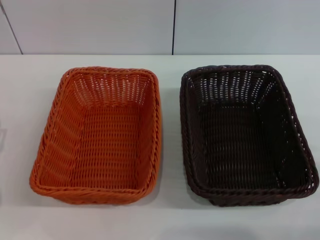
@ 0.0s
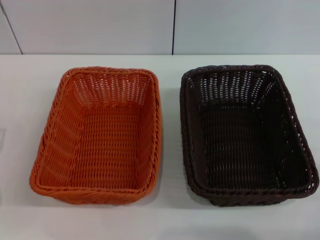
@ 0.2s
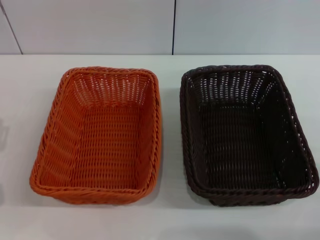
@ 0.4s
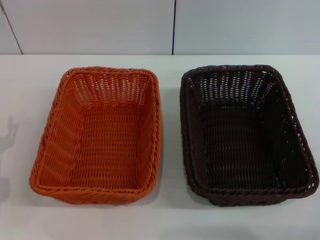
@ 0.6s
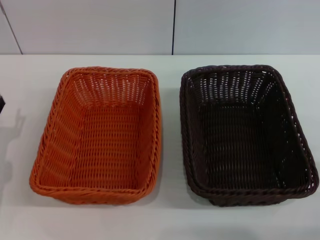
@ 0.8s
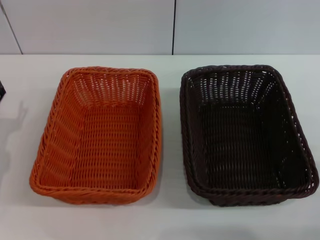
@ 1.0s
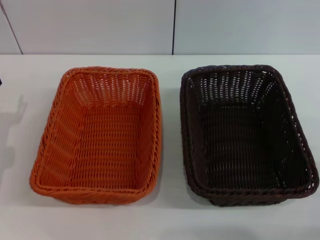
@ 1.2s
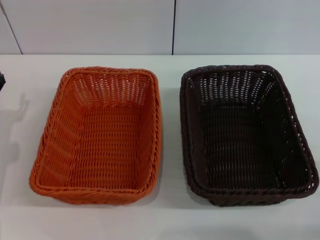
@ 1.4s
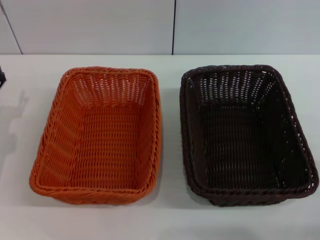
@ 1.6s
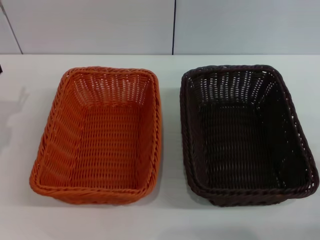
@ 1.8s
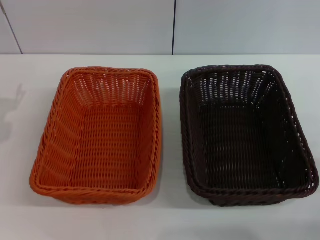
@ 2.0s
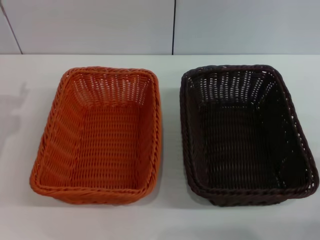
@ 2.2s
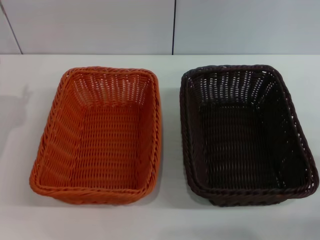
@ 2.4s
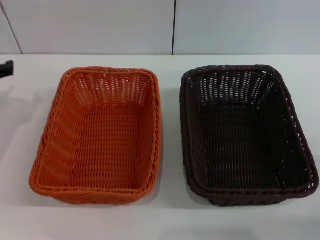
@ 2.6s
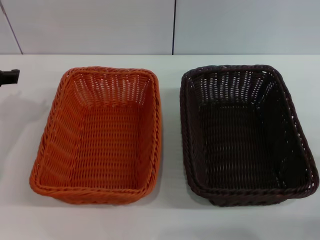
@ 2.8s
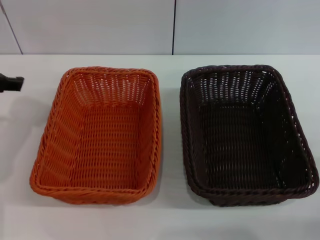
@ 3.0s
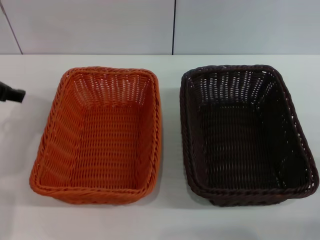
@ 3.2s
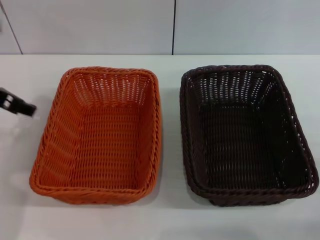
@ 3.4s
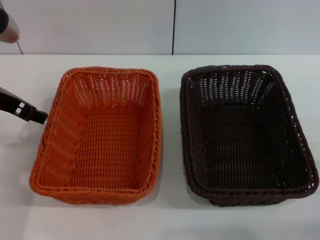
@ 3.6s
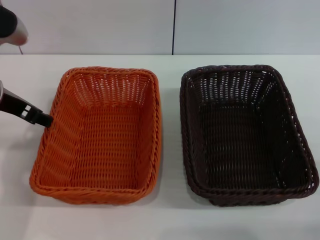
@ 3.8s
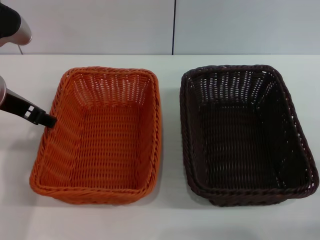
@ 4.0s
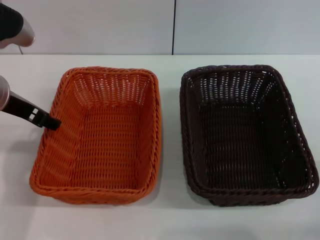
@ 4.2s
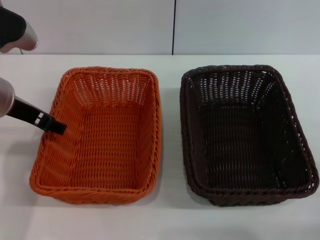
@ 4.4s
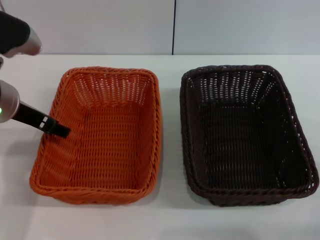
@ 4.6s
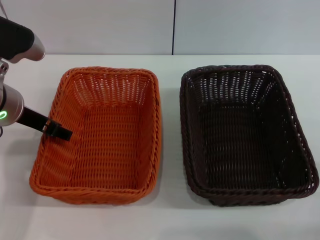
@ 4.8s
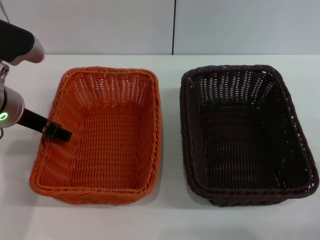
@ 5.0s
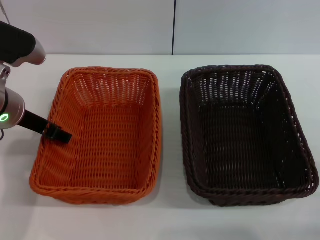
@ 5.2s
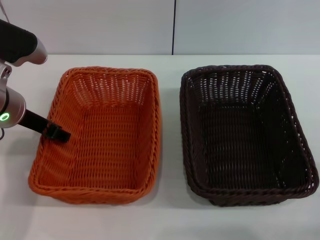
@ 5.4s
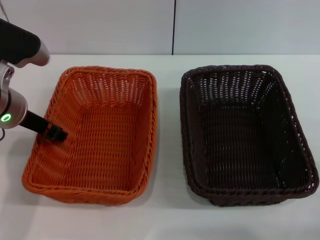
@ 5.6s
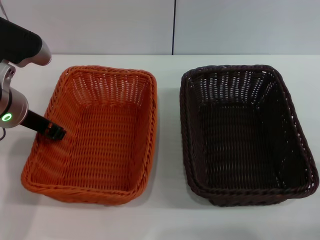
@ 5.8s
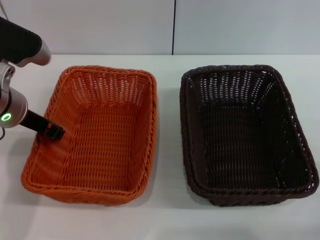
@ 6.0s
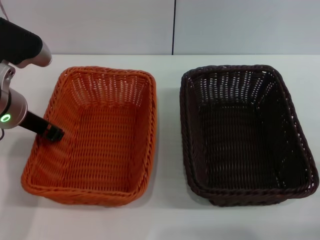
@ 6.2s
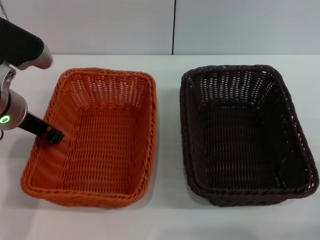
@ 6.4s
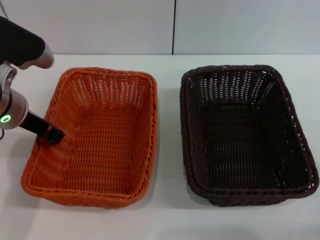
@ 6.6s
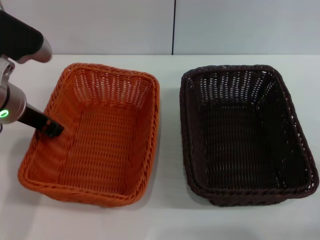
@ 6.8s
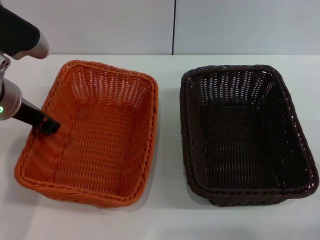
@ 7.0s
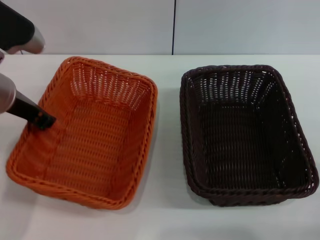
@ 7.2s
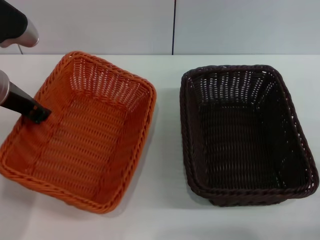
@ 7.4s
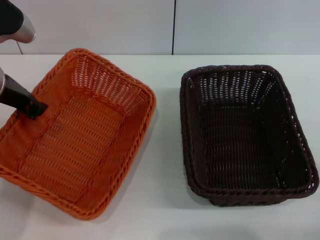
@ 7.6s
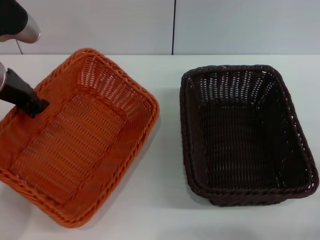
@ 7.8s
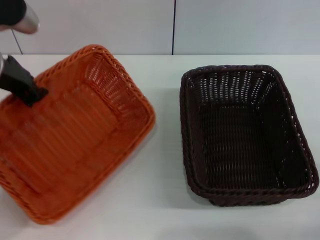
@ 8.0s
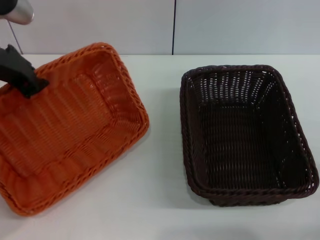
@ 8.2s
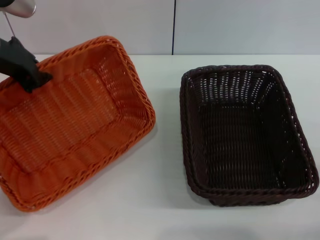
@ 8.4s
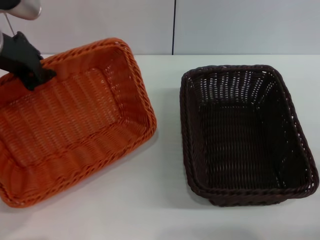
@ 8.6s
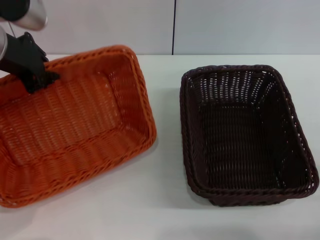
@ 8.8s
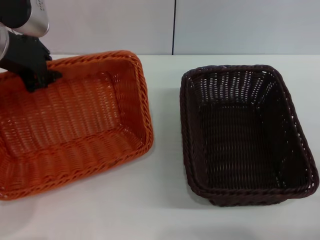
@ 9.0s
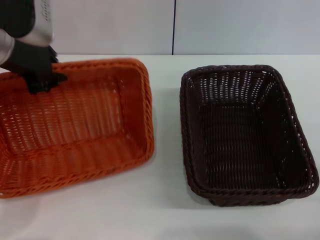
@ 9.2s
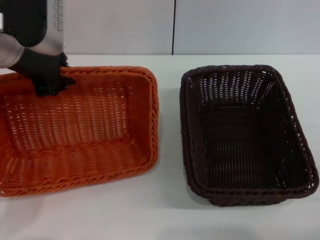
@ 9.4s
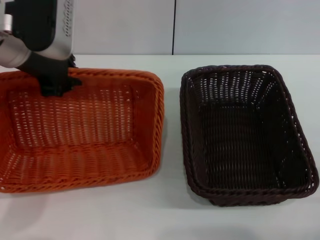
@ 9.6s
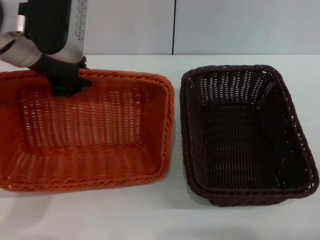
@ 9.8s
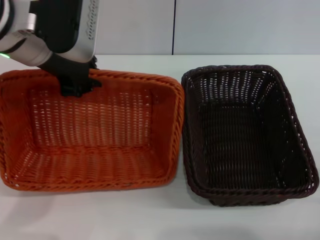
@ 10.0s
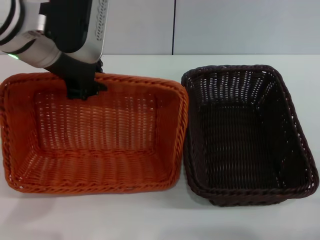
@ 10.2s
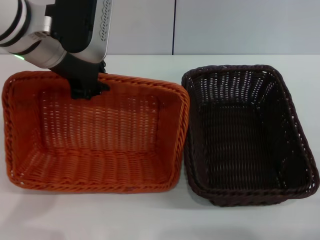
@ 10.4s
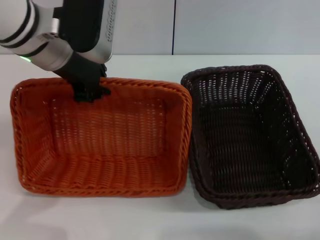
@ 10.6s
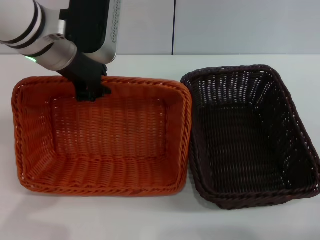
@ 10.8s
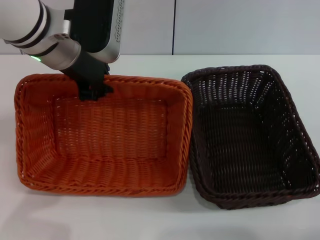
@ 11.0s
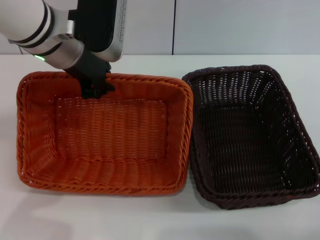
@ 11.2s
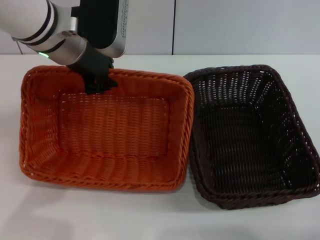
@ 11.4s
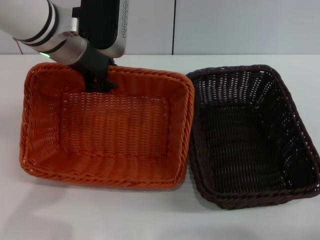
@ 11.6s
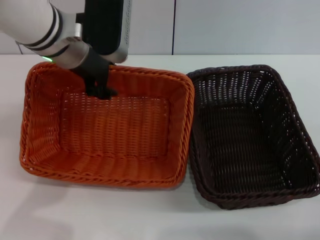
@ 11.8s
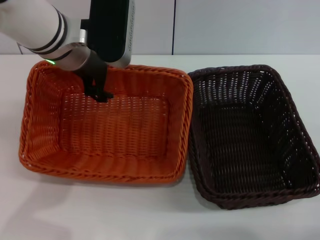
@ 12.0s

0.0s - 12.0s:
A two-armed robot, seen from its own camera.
Step, 0.0s - 7.0s: Pick up the light basket with the left gripper.
3.0s - 4.4s: The left gripper moves to the right, about 5 cm.
4.4s - 6.0s: The left gripper closes.
6.0s - 7.6s: There are only small adjustments of the grippers.
7.6s - 9.0s: The left gripper goes roughly 5 cm upward.
9.0s - 10.4s: The left gripper moves to the right, roughly 5 cm.
10.4s - 12.0s: The left gripper changes place by about 5 cm, and opens.

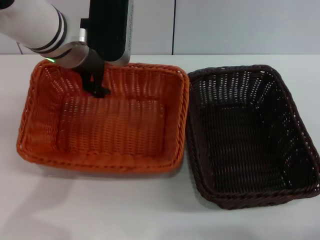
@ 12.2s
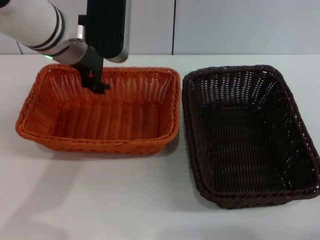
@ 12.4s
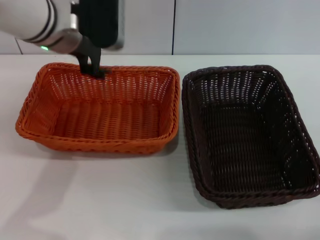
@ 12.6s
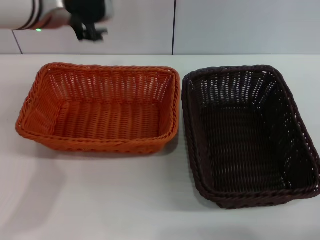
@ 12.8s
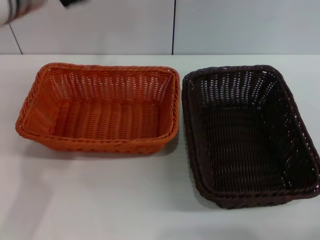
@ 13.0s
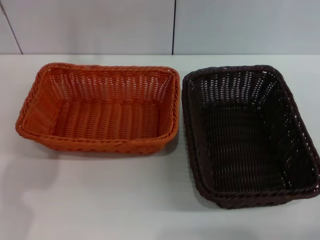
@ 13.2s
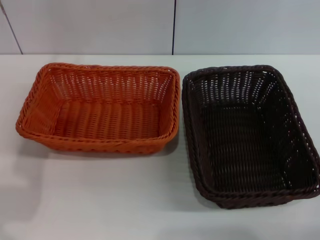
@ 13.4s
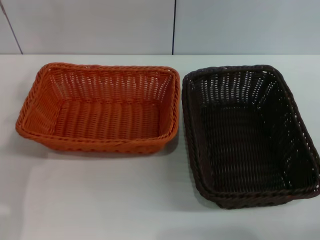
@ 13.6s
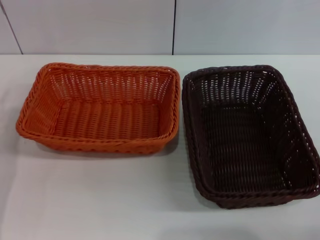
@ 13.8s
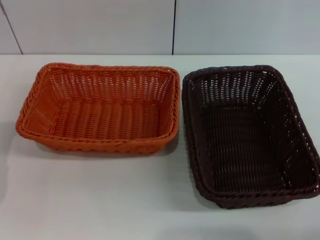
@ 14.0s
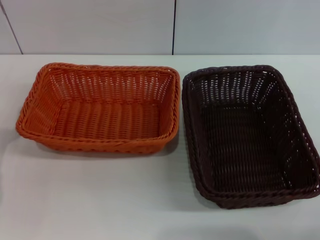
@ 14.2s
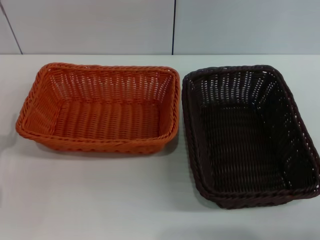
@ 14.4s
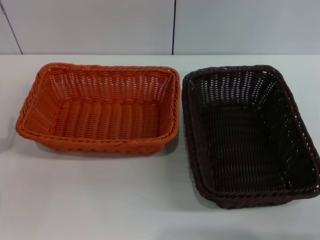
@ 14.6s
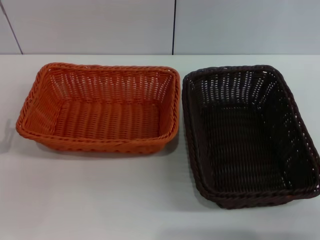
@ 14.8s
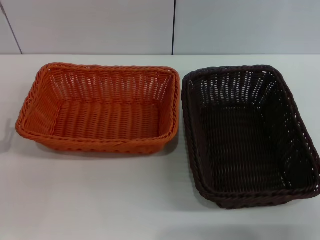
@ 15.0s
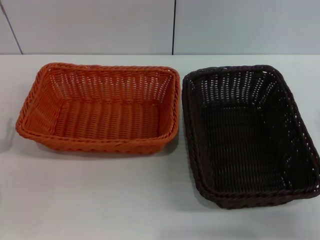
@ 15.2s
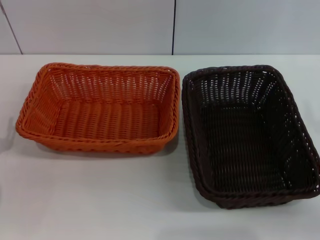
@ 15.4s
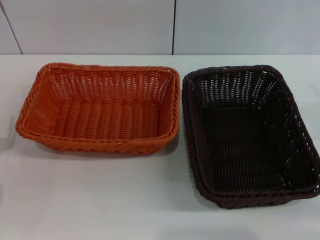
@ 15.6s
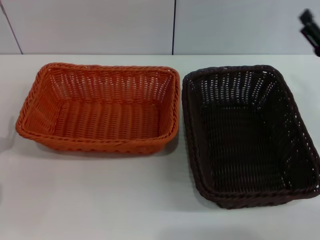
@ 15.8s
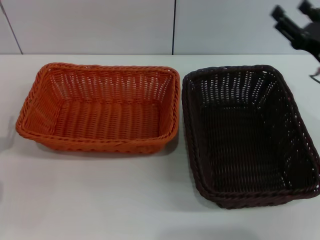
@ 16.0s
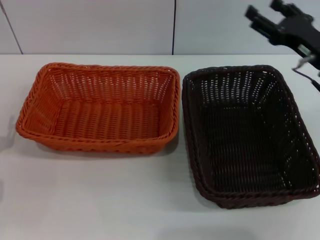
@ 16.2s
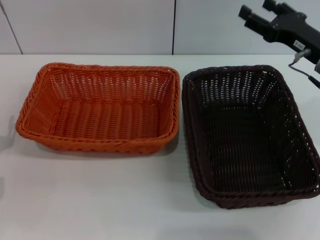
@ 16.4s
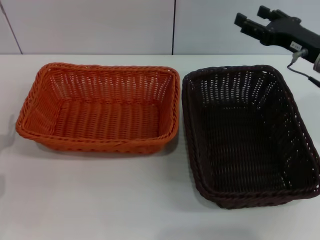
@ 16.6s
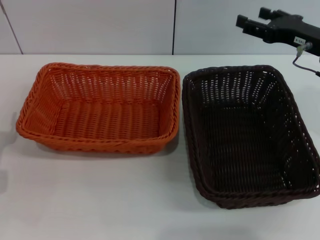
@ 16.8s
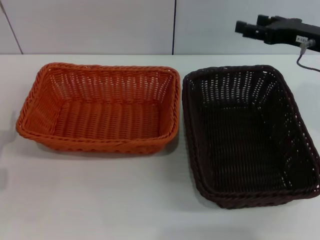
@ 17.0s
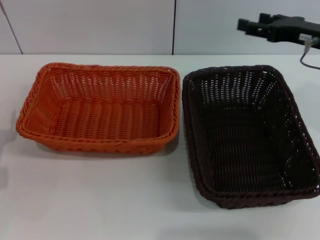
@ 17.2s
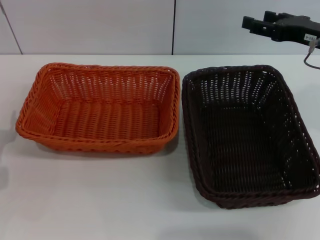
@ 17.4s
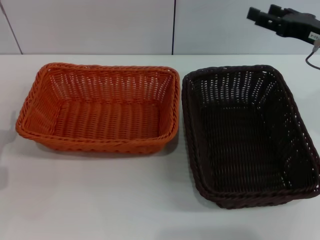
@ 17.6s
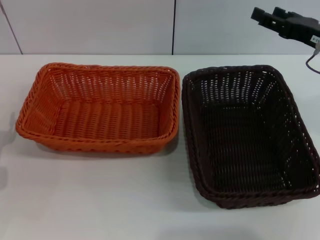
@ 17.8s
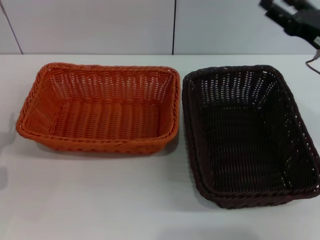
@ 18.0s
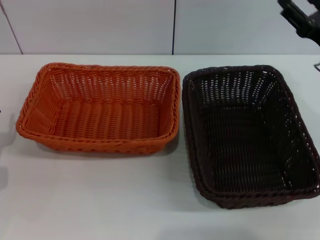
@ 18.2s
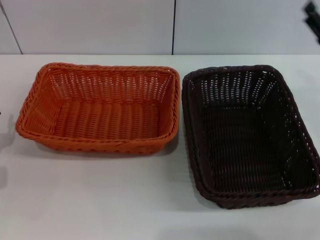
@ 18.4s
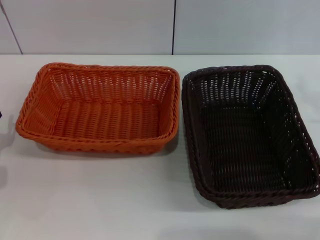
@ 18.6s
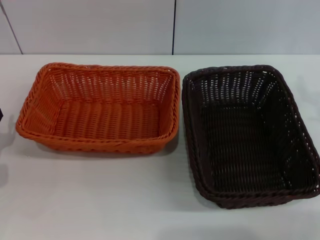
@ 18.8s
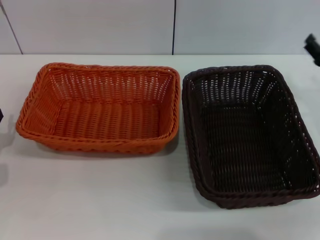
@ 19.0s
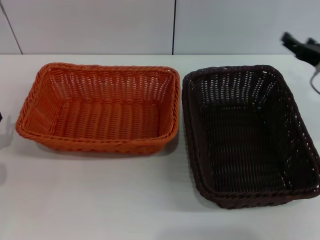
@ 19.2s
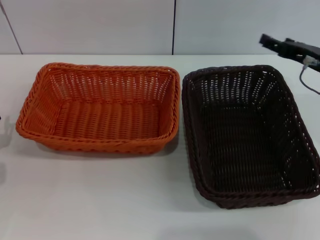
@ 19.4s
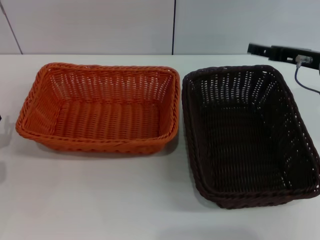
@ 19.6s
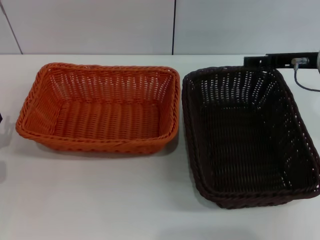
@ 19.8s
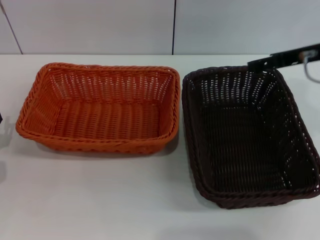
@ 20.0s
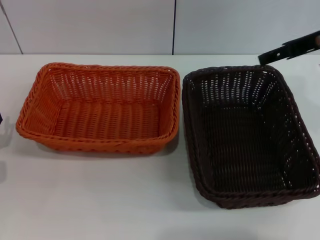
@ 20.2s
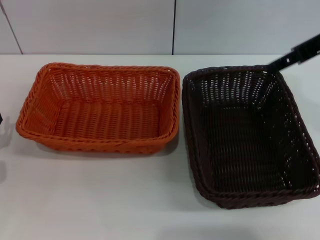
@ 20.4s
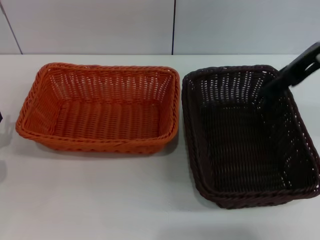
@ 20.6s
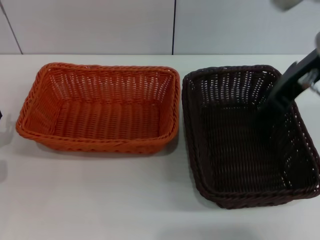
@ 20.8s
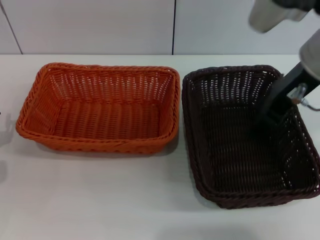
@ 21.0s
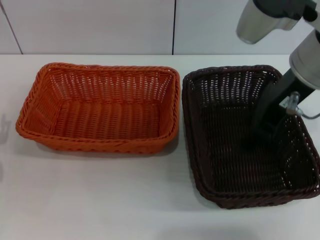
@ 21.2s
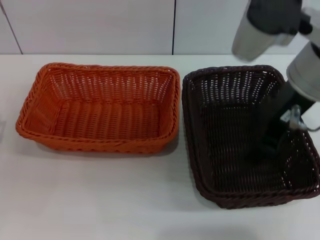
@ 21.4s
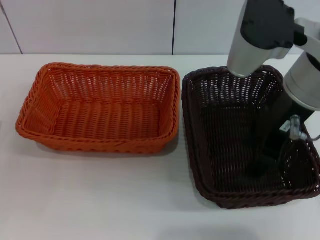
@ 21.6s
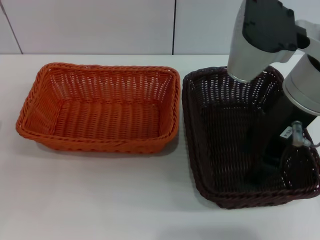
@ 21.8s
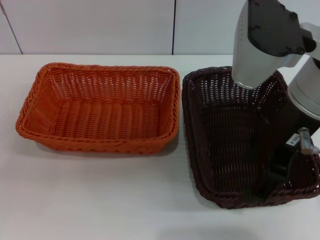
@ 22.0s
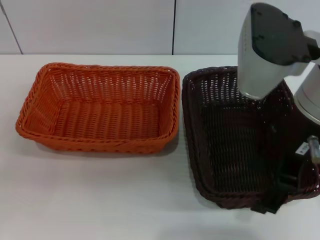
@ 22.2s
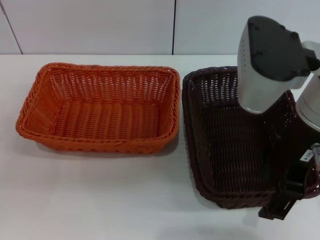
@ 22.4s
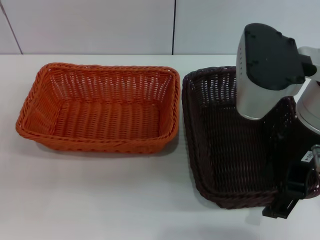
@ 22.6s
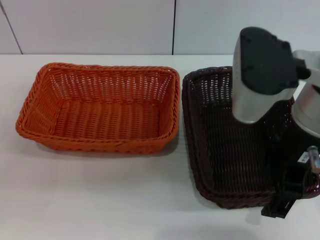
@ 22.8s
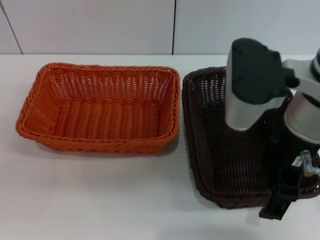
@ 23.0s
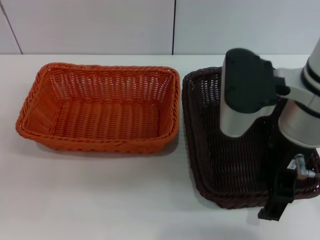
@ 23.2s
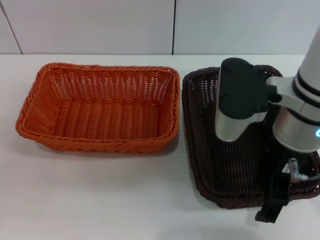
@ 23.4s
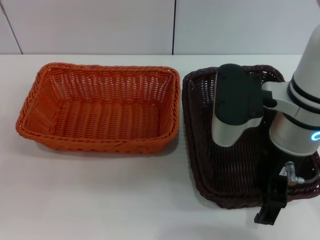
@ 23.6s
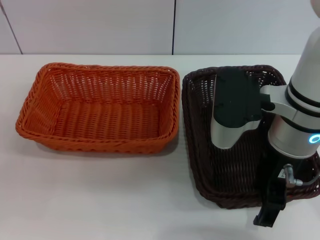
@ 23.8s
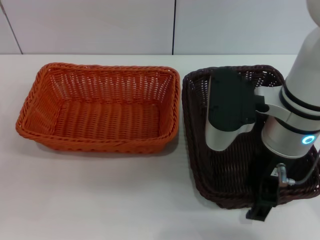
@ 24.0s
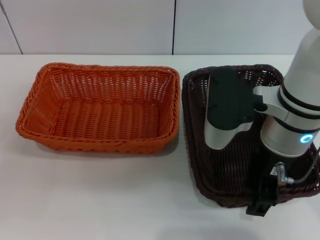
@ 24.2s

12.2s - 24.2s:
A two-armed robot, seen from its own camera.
12.2s - 13.8s: The left gripper is displaced to the left, backward and downward by some 20 cm.
13.8s - 15.2s: The right gripper changes place by approximately 5 cm.
15.2s - 16.6s: The right gripper shifts about 20 cm forward and upward.
18.2s - 19.8s: The right gripper shifts approximately 5 cm upward.
19.8s - 21.2s: The right gripper moves to the left, upward and backward, approximately 15 cm.
22.6s - 24.2s: The right gripper goes some 5 cm downward.
